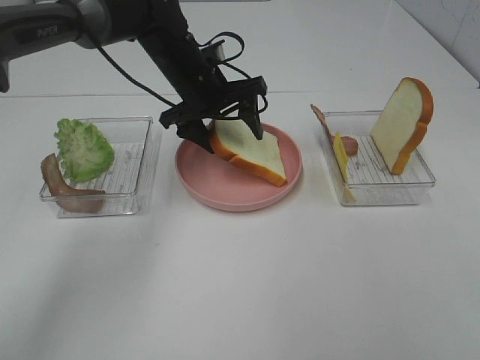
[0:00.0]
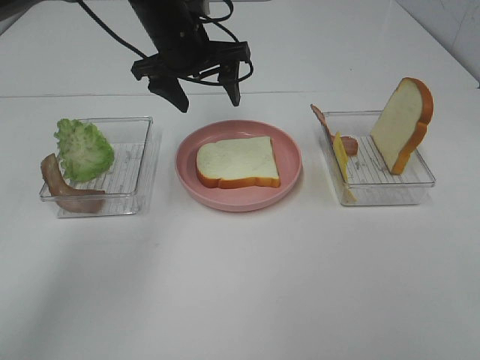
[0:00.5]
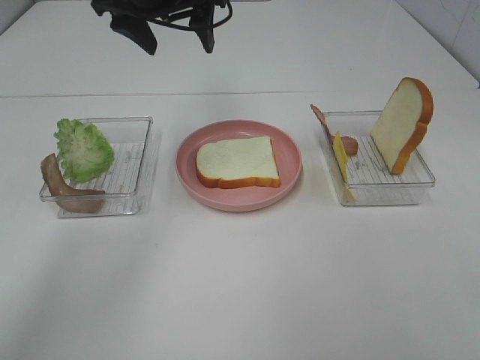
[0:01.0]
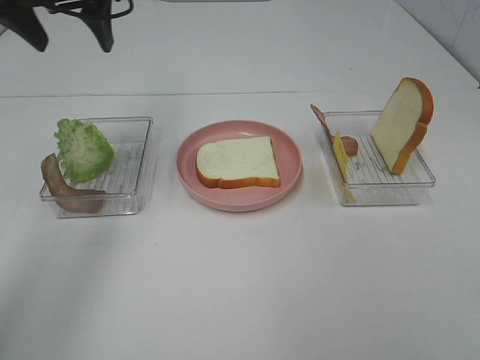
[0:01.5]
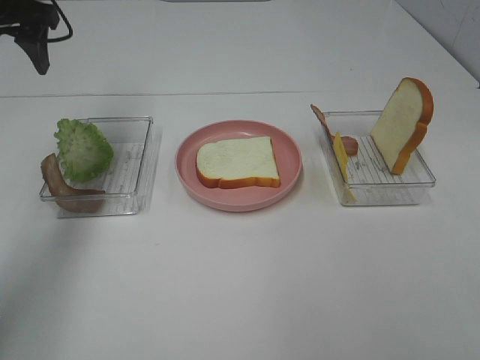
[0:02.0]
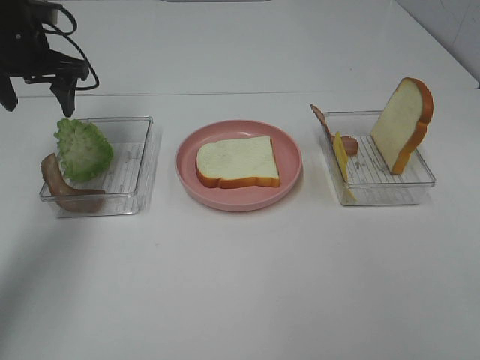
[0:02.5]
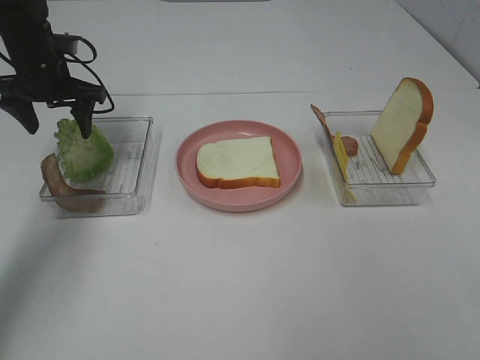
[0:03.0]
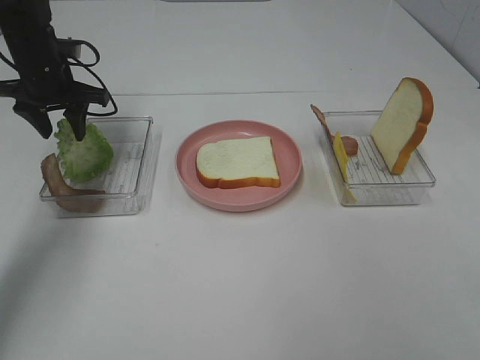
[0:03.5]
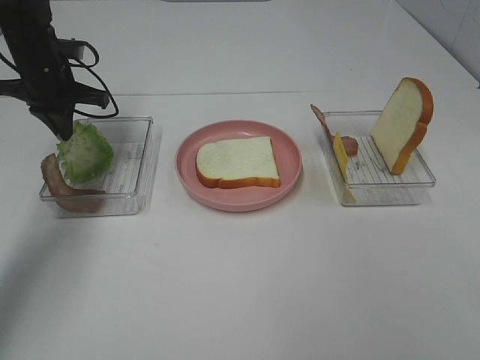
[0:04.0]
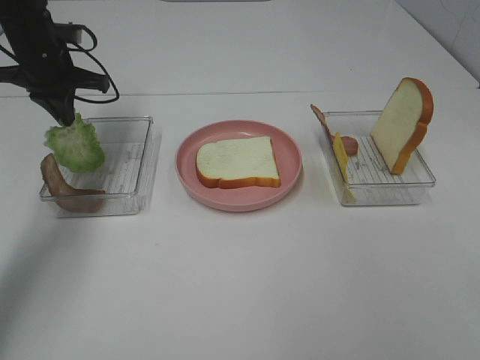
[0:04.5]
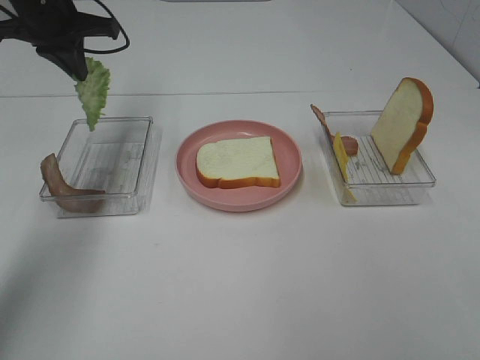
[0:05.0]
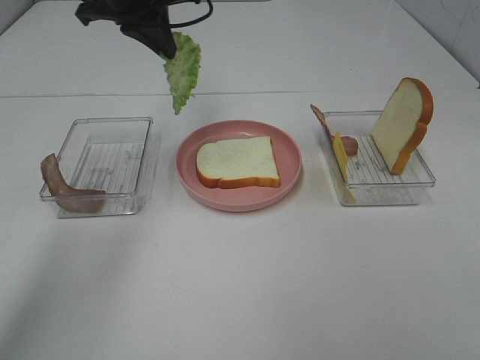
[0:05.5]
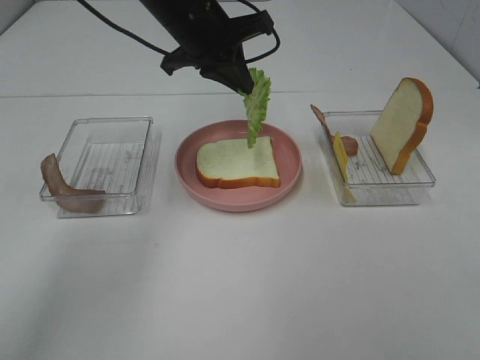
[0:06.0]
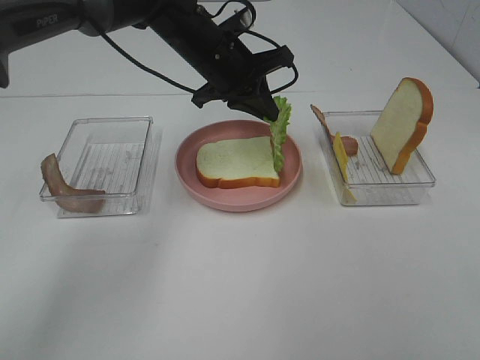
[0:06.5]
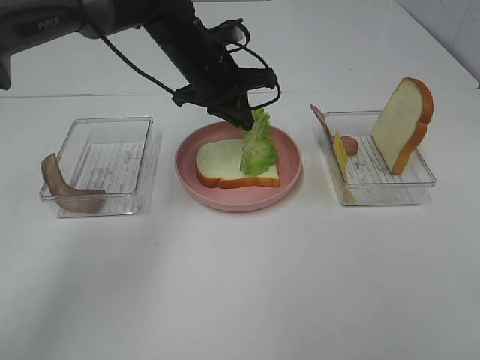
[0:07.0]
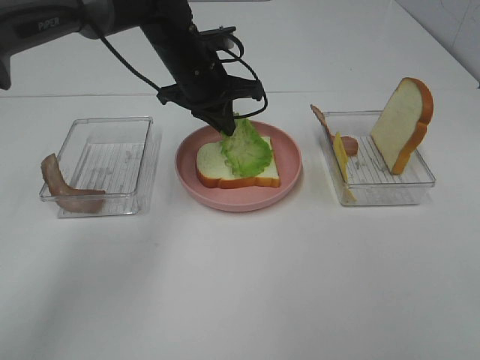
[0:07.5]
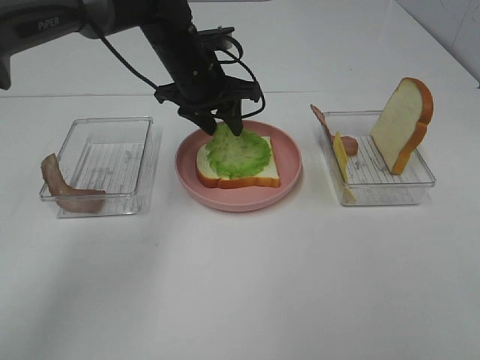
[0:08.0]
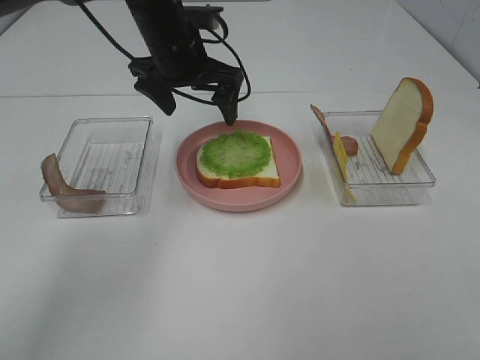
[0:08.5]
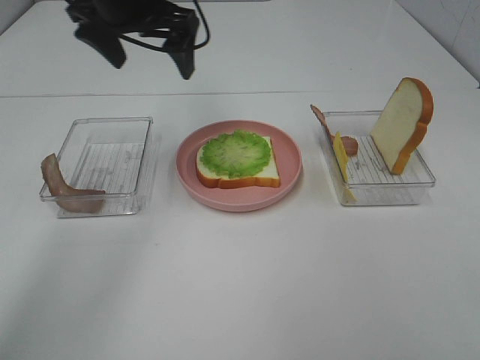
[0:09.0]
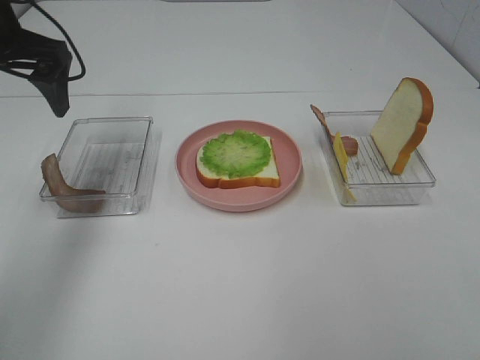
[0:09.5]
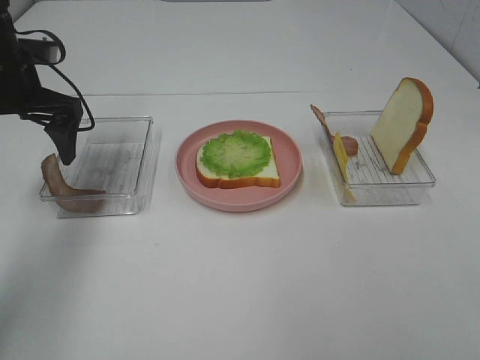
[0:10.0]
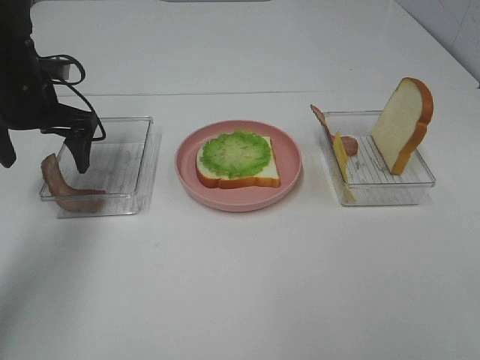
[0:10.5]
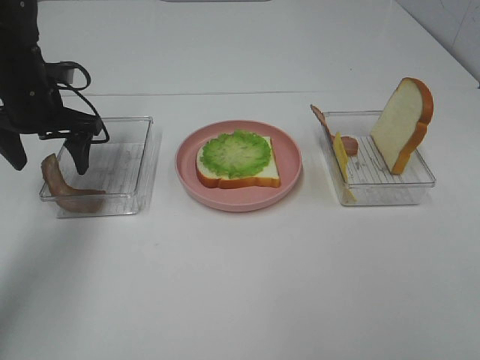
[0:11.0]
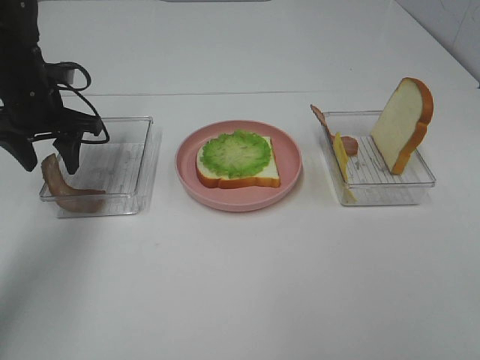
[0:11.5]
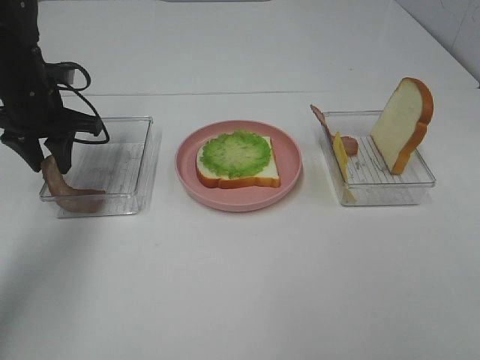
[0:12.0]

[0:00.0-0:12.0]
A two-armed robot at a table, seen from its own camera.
Task of the whole recording: Make sandwiches.
Step, 0:01.0 to 0:04.0: Left hand:grab the lettuce slice.
Step, 0:04.5 to 0:08.0: Left hand:place the lettuce slice on the bread slice.
0:00.0 to 0:02.0: The left gripper shifts approximately 25 cm to the left and upward.
0:02.0 to 0:04.0: The left gripper travels downward and forward by roughly 15 cm, and closes.
0:04.0 to 0:06.0: The left gripper moves to the right, approximately 20 cm.
0:06.0 to 0:08.0: The left gripper heads downward, covering approximately 5 cm, and opens its fingers.
0:08.0 to 0:10.0: The left gripper travels to the left by about 20 cm, and opens.
0:10.0 to 0:12.0: The left gripper shifts by some 5 cm, and closes up.

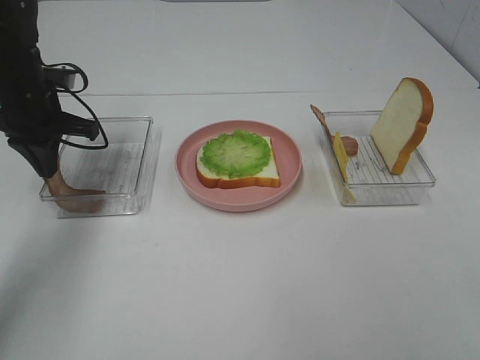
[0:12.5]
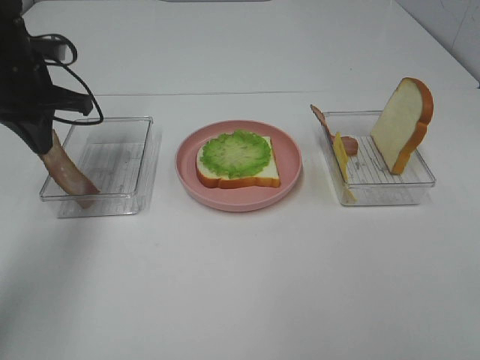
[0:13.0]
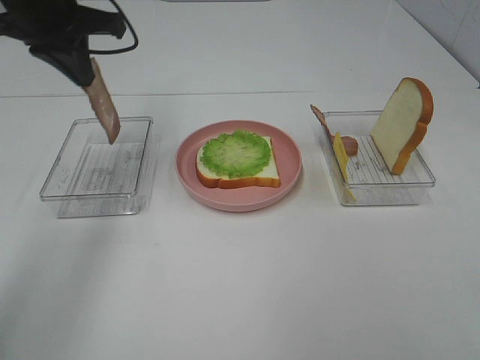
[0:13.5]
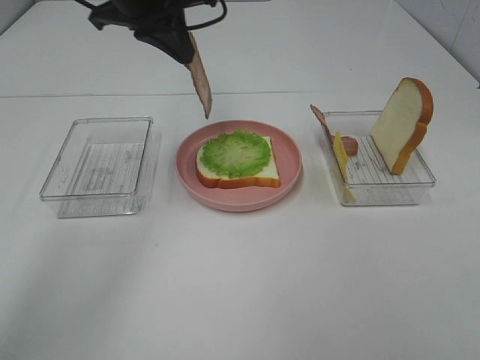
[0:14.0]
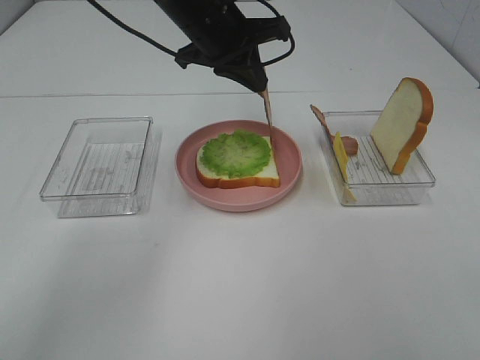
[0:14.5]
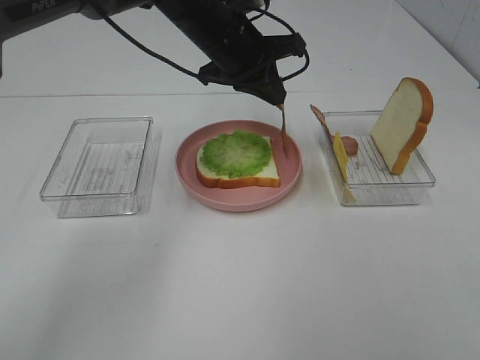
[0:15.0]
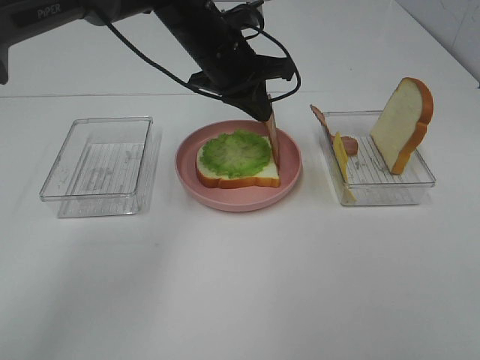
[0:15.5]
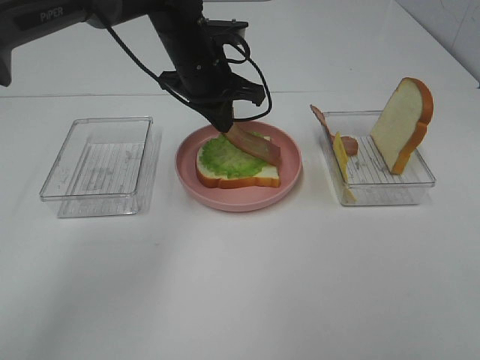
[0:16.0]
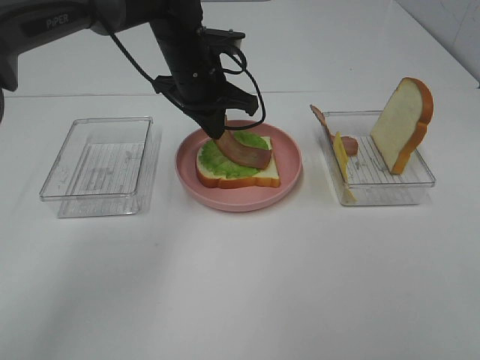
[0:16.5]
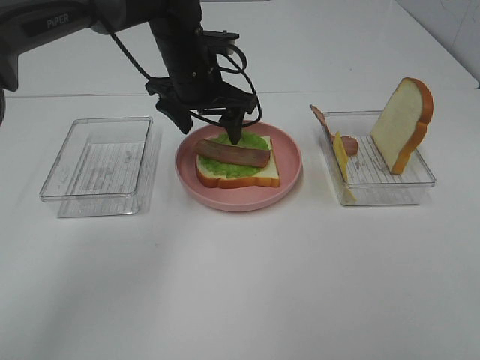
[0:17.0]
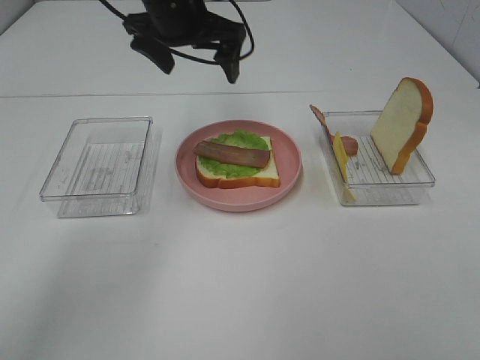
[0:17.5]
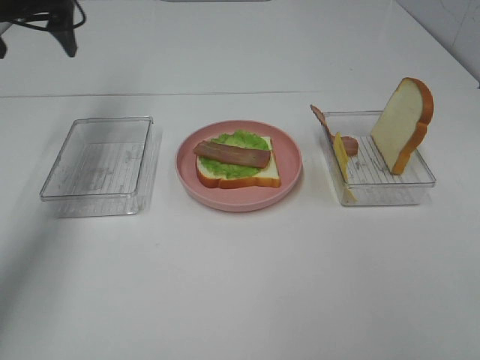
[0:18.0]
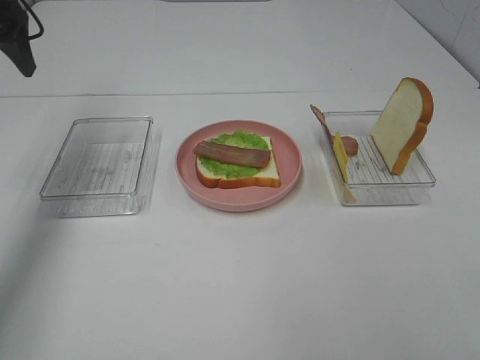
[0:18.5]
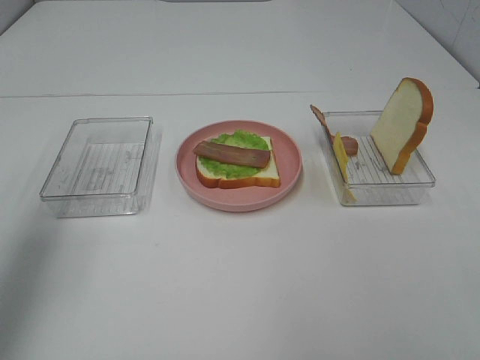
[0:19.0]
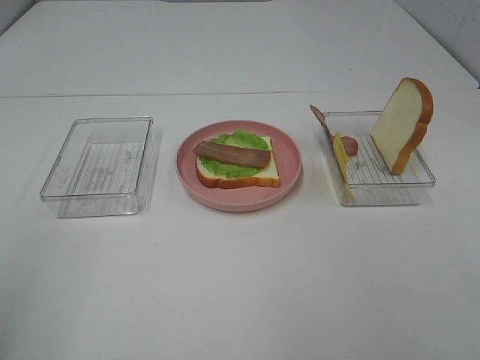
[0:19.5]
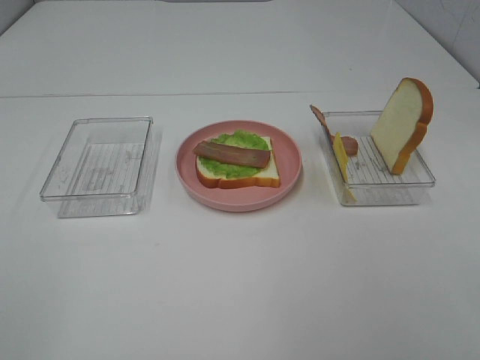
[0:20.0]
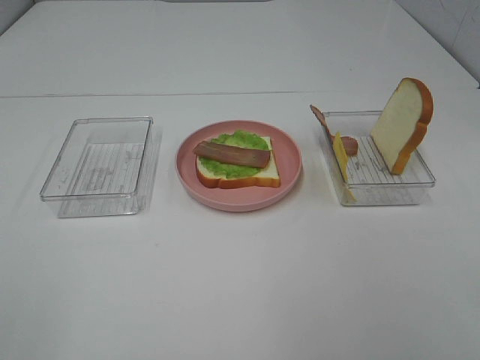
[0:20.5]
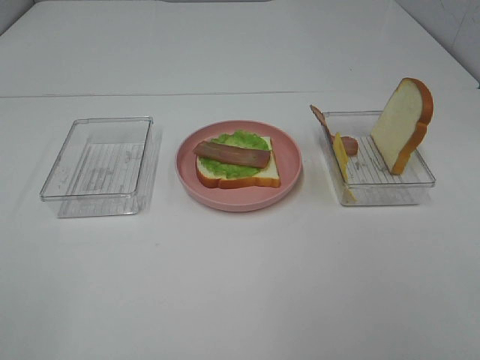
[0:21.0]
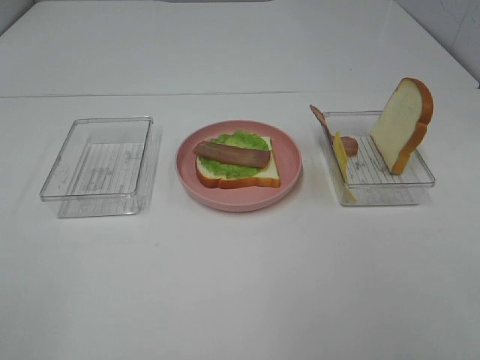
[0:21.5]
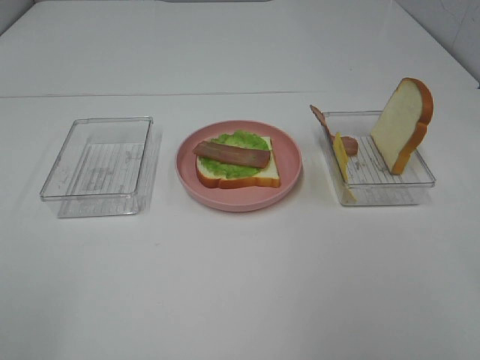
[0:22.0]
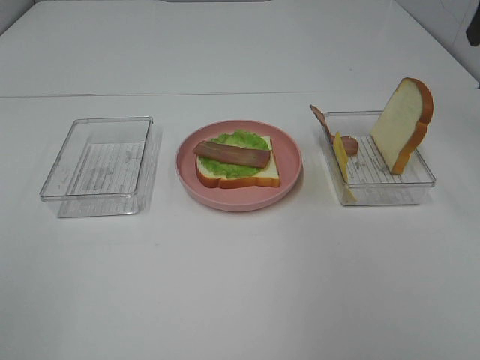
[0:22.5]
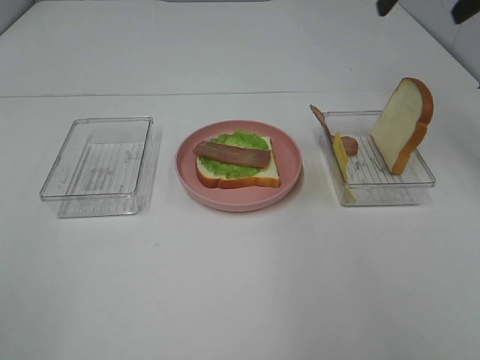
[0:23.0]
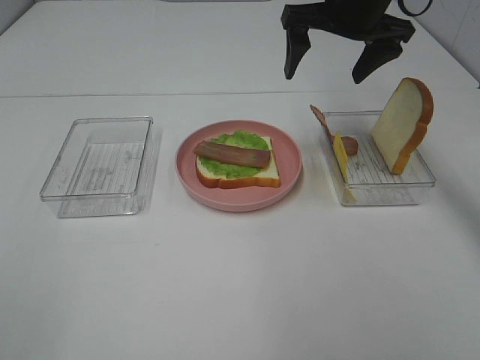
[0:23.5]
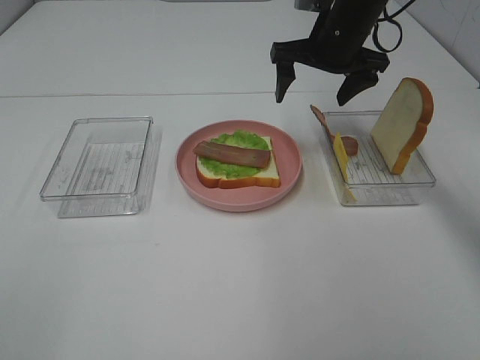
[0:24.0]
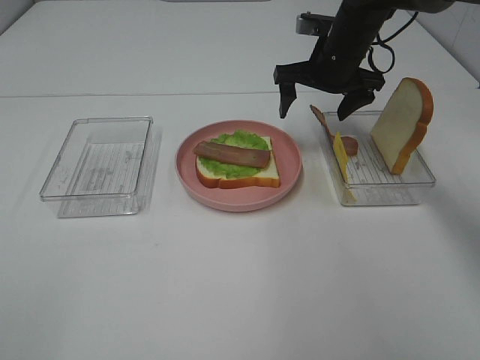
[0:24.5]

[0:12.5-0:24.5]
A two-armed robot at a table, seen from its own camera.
Task of the whole recording: Make sandwiches.
Step, 0:13.0 to 0:17.0: Left hand:place bacon on lettuce slice.
0:12.5 to 0:14.5: The left gripper is displaced to the right by roughly 20 cm.
0:14.5 to 0:16.5: The left gripper heads downward, covering some 5 cm.
0:16.5 to 0:18.5: The left gripper is displaced to the left and upward by roughly 30 cm, and opens.
0:18.5 to 0:20.5: The left gripper is displaced backward by about 40 cm.
0:22.5 to 0:24.5: The right gripper moves downward, forward and to the left, roughly 30 cm.

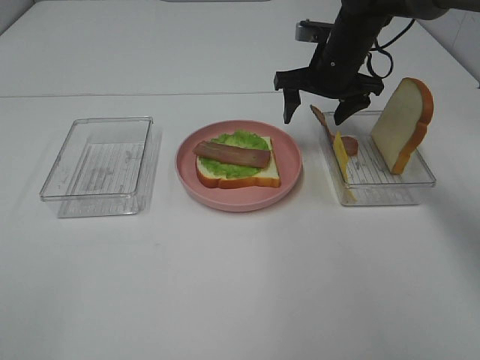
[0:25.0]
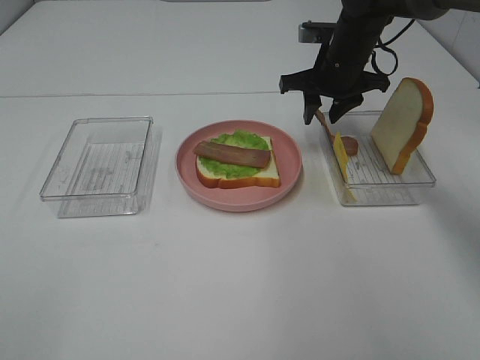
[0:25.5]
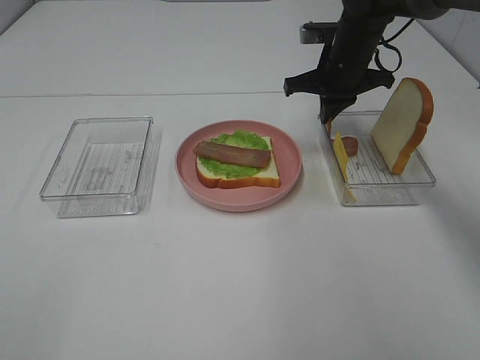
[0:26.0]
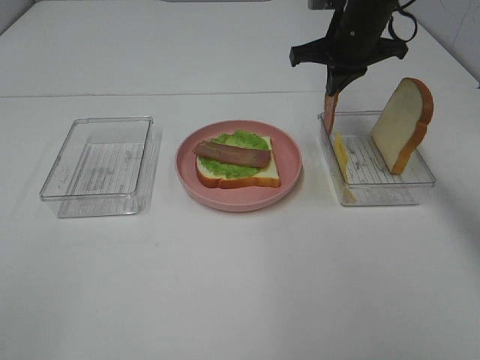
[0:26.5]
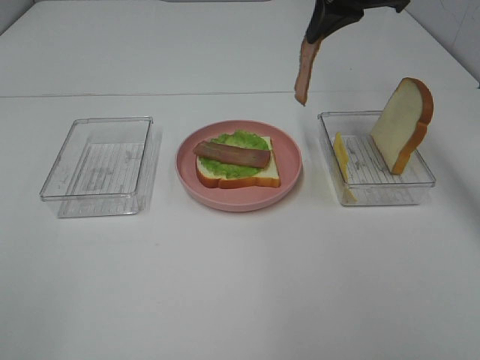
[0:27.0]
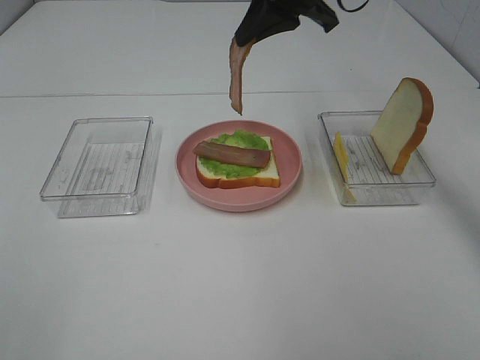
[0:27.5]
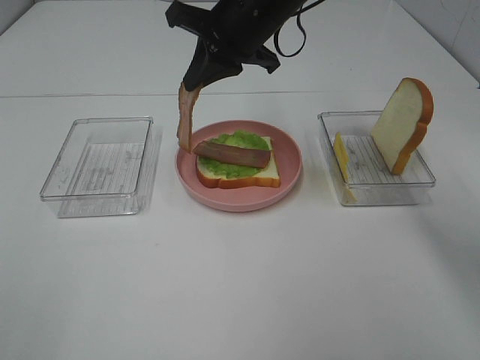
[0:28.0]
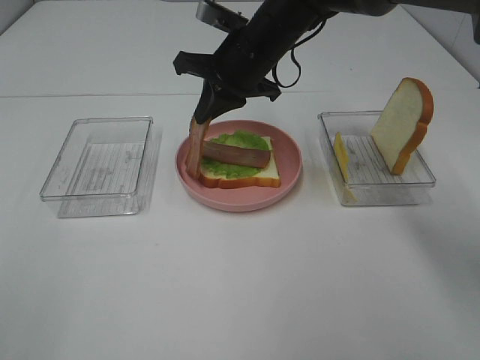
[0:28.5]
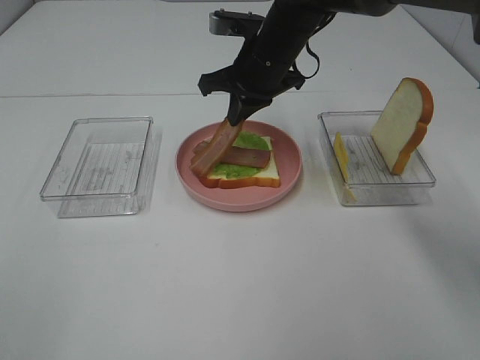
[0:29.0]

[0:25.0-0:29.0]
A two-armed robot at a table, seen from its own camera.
Task of the whole recording: Make sandwiches.
0:25.0 to 0:27.0: The right gripper travels upward by roughly 15 cm, and closes its fingers.
0:27.0 to 0:29.0: The right gripper is displaced downward and to the left by approximately 15 cm.
